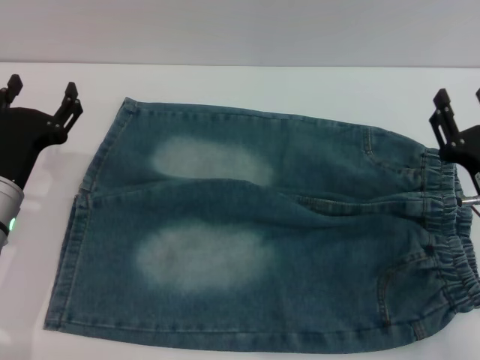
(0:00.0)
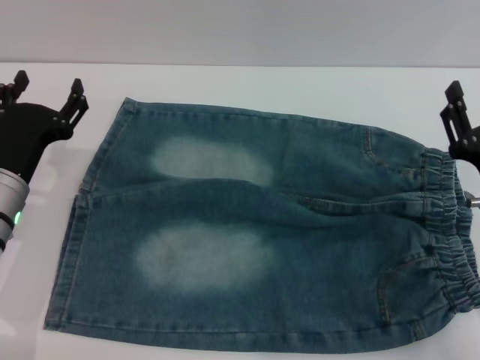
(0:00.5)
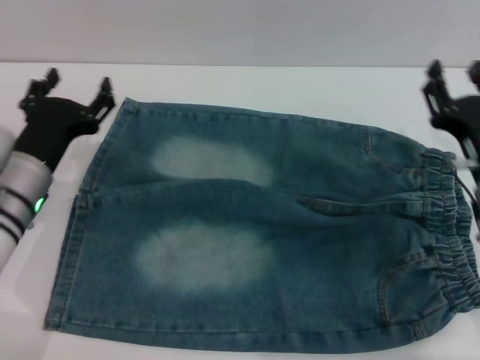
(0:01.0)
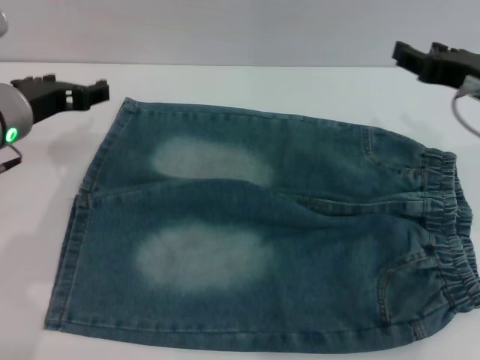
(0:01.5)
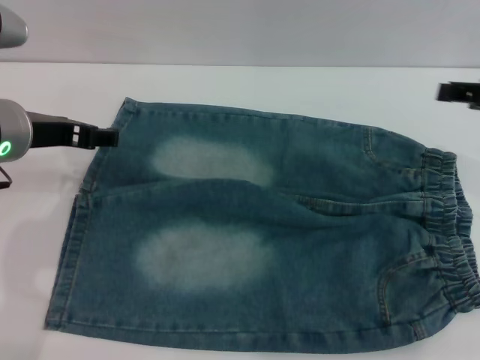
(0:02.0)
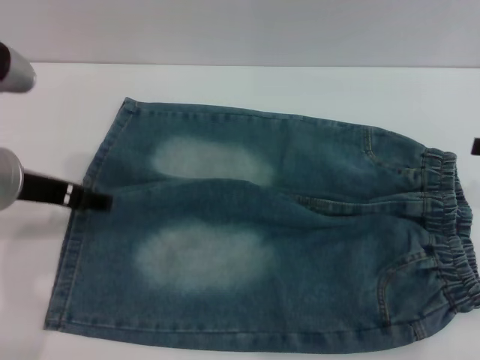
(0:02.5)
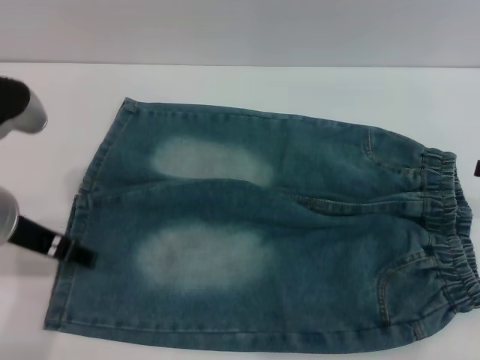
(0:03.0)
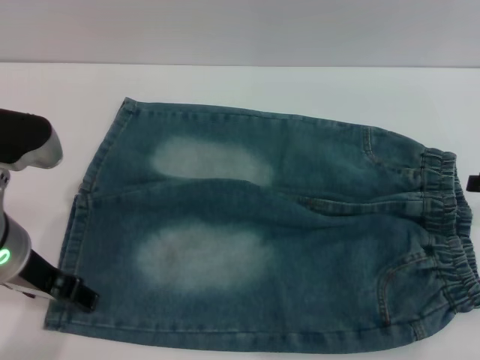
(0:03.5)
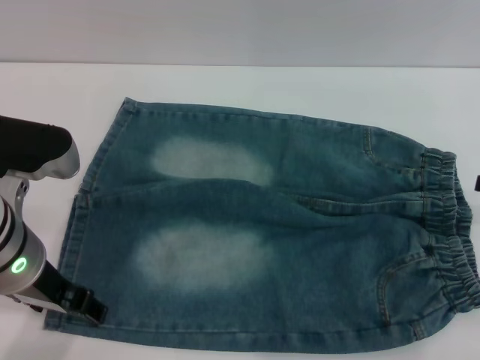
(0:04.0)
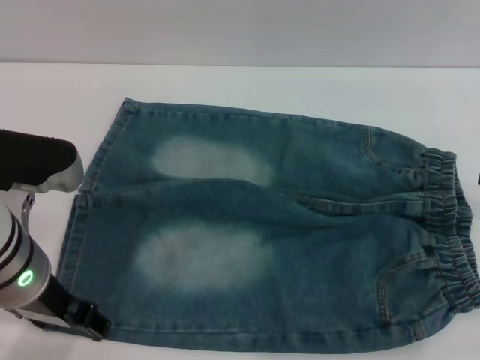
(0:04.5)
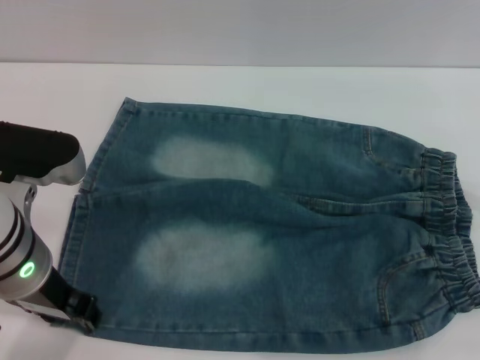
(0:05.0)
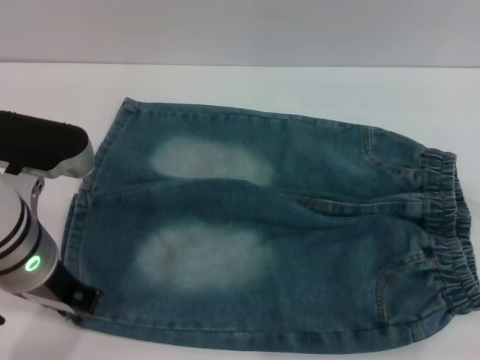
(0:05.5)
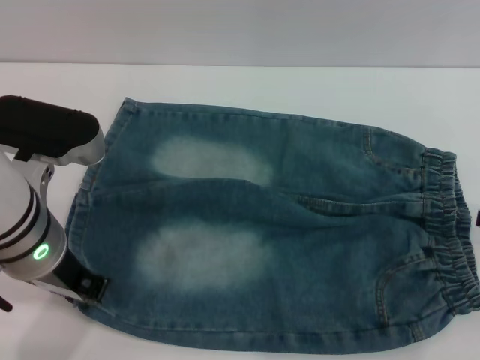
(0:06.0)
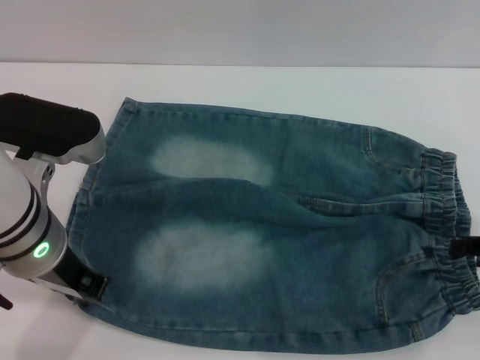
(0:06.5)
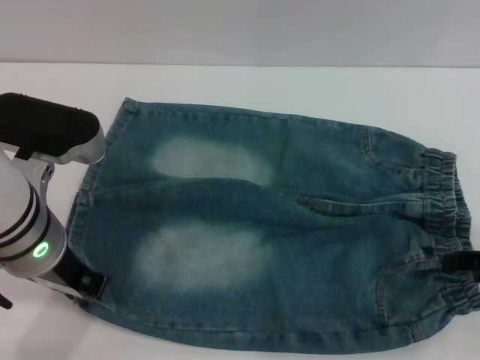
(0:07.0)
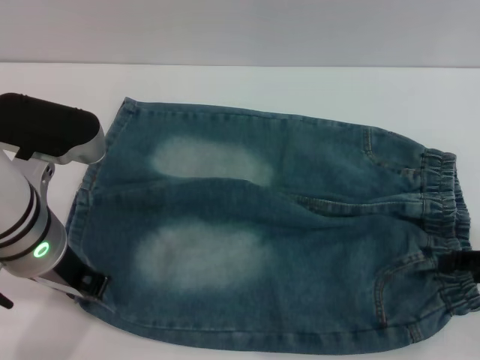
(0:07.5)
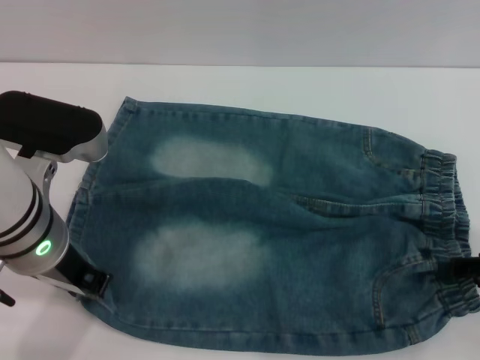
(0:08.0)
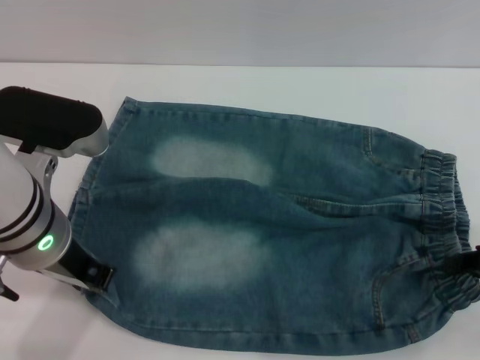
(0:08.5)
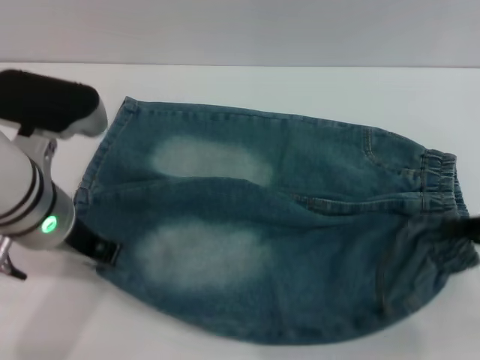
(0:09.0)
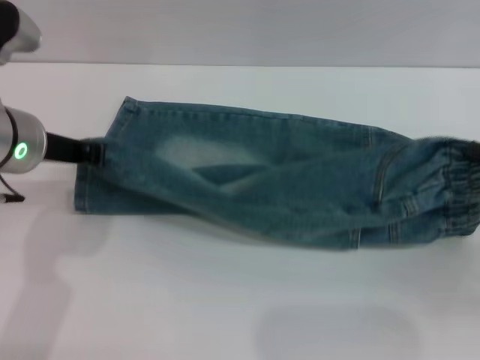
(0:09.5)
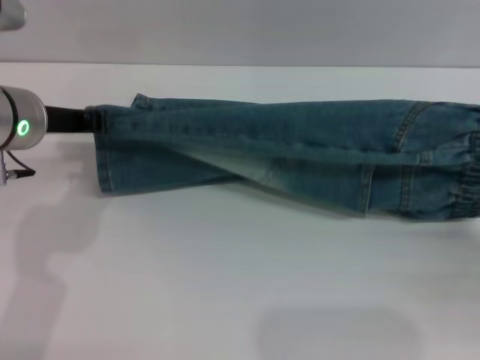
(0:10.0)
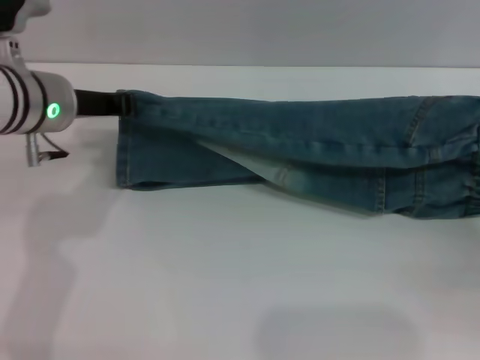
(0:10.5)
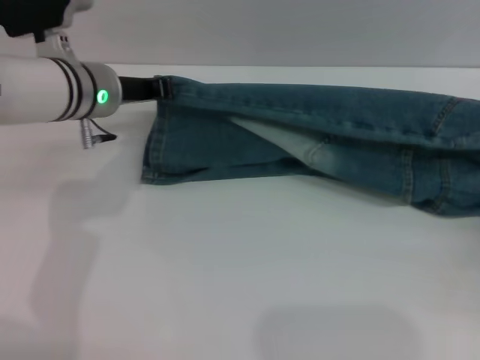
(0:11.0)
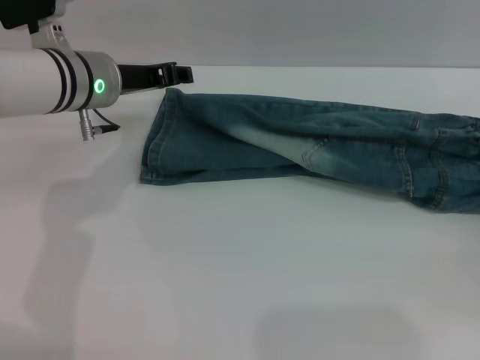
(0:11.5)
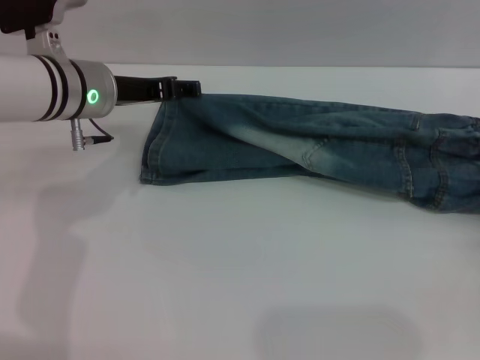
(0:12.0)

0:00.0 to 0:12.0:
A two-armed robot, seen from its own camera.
0:00.0 to 0:02.0: Both grippers move upward, about 15 cm.
0:02.0 to 0:04.0: The left gripper moves backward, about 5 cm, while the right gripper shifts some 5 cm downward and to the right.
0:04.0 to 0:06.0: The left gripper closes.
0:06.0 to 0:08.0: The right gripper ends up about 5 cm from where it was.
0:08.0 to 0:10.0: The right gripper closes up. Meanwhile the left gripper is displaced forward by some 5 cm.
0:10.0 to 0:12.0: The left gripper goes roughly 5 cm forward, and opens up; the right gripper opens its fingers.

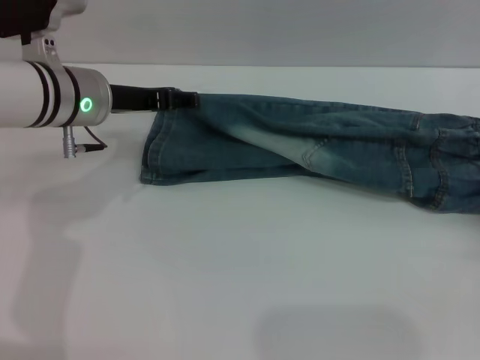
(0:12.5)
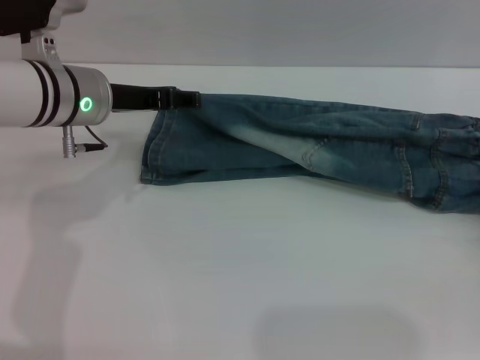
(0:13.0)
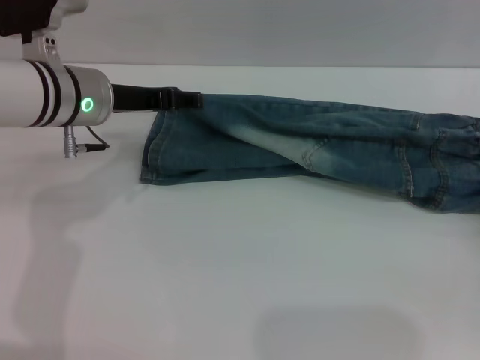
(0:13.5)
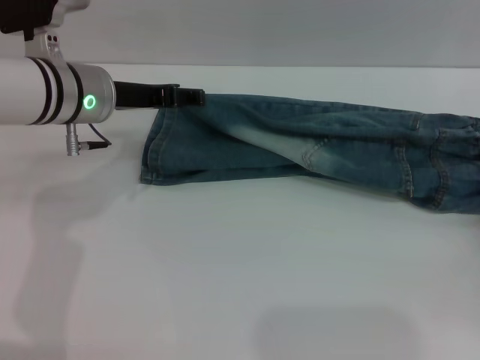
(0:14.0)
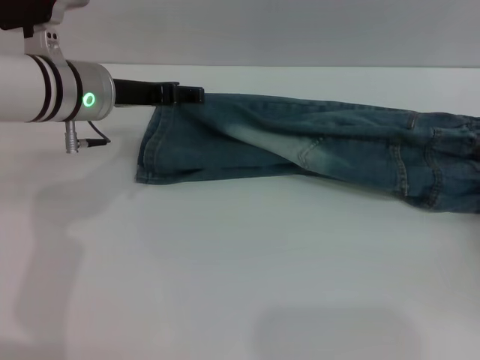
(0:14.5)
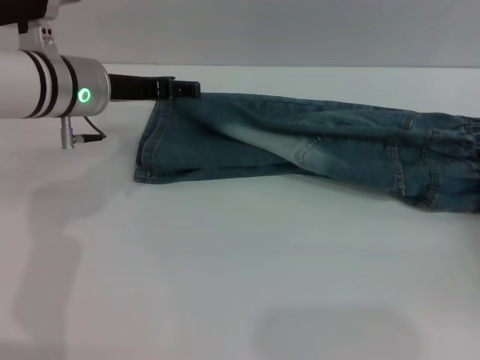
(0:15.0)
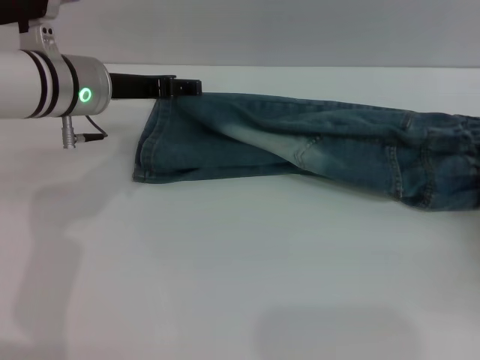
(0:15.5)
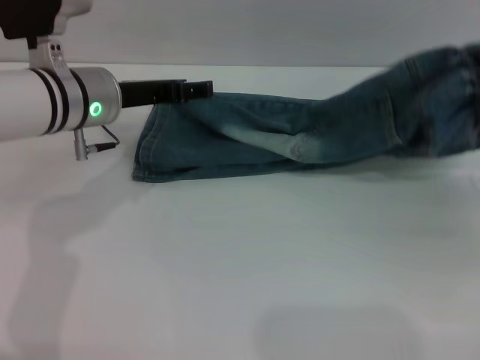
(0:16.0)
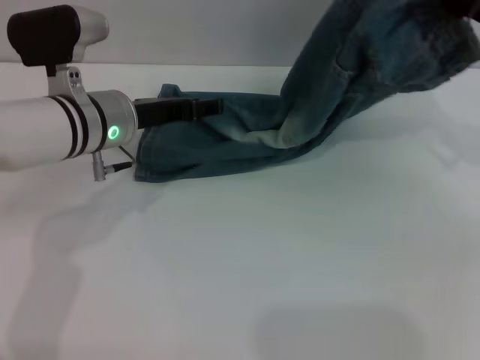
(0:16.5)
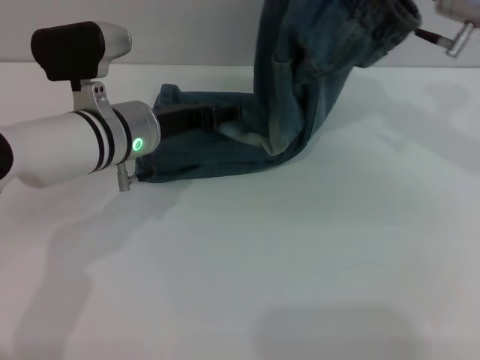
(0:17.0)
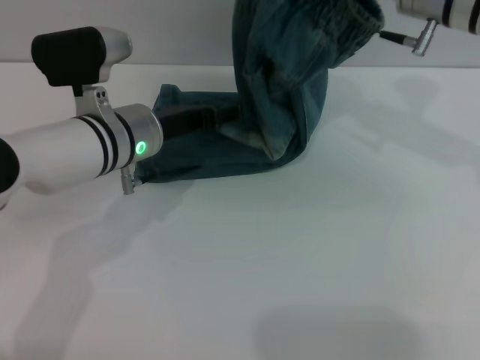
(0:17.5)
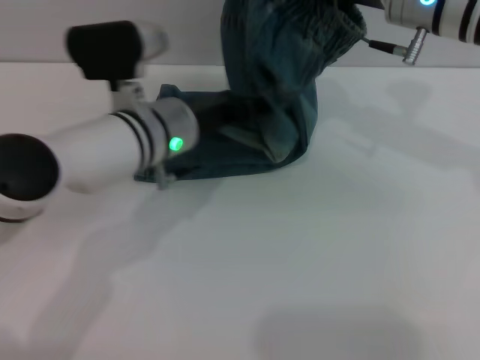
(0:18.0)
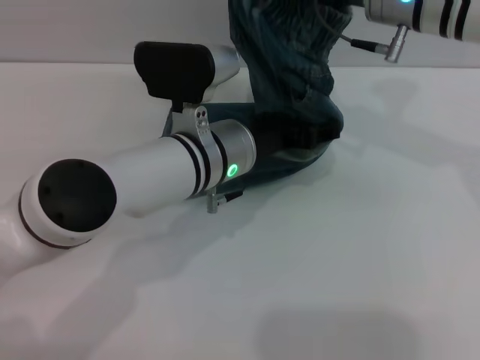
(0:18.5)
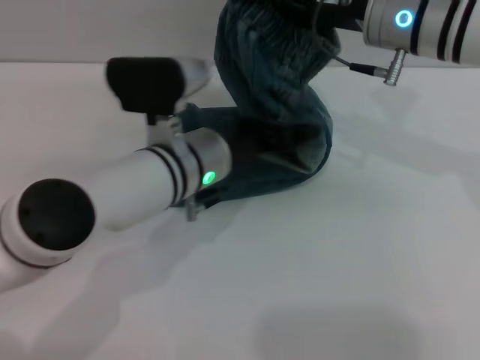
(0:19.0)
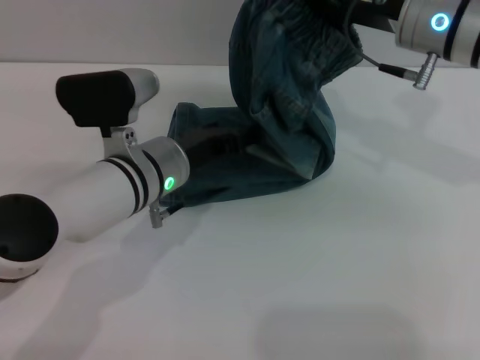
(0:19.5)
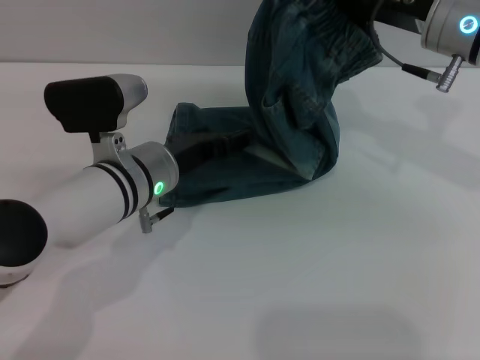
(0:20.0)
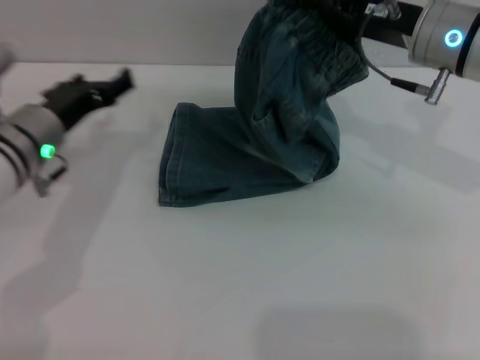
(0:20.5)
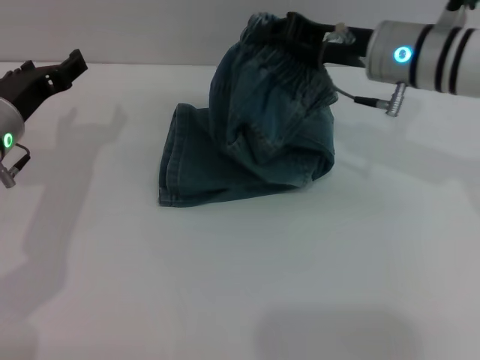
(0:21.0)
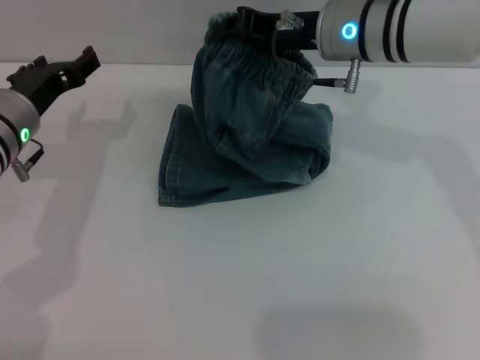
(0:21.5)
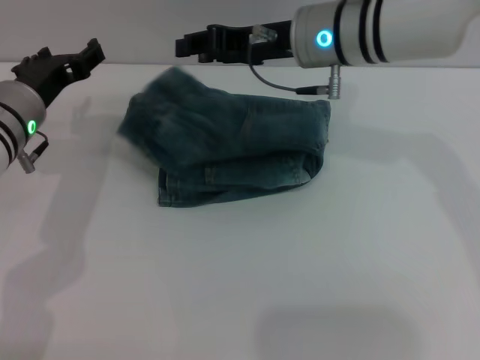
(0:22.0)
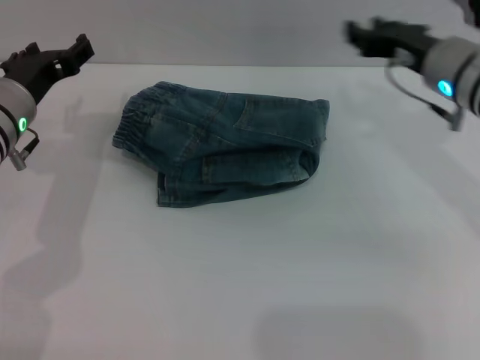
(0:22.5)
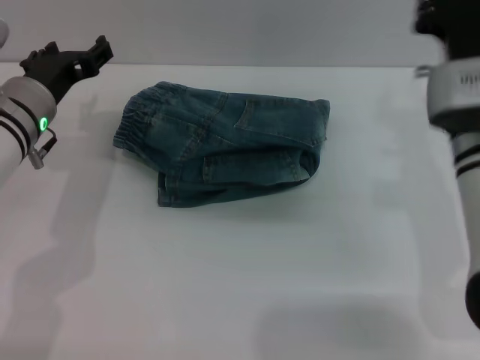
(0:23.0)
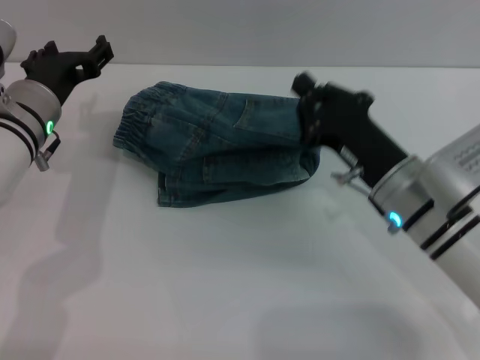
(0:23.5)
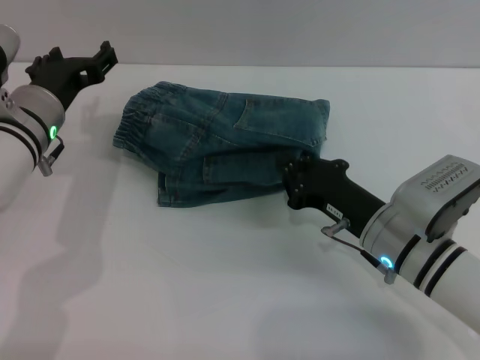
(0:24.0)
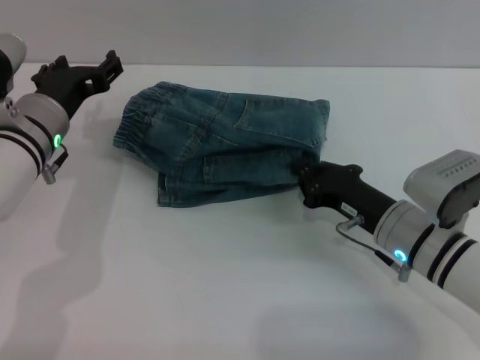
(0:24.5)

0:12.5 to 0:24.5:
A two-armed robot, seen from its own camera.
Step, 0:14.5 to 0:22.0: Fold the pants from right to left with the right gripper.
0:14.5 to 0:16.5: The right gripper moves upward, forward and to the left, about 20 cm, and closes its fingers.
0:16.5 to 0:18.5: The left gripper goes some 10 cm to the right. The right gripper is displaced to the left by roughly 15 cm.
0:18.5 to 0:20.5: The left gripper is displaced to the left by approximately 15 cm; the right gripper ends up approximately 5 cm from where it was.
0:20.5 to 0:22.5: The right gripper moves approximately 10 cm to the left and comes back, and opens.
0:22.5 to 0:24.5: The right gripper shifts about 15 cm downward and backward, and closes up.

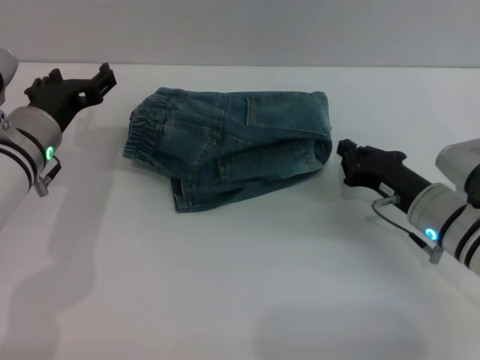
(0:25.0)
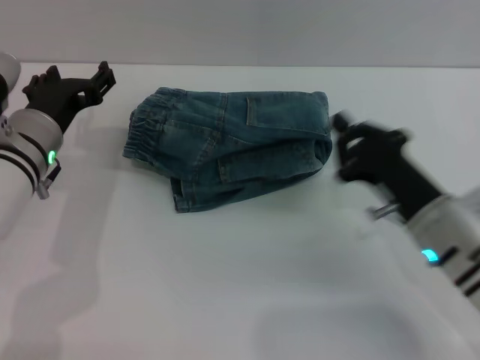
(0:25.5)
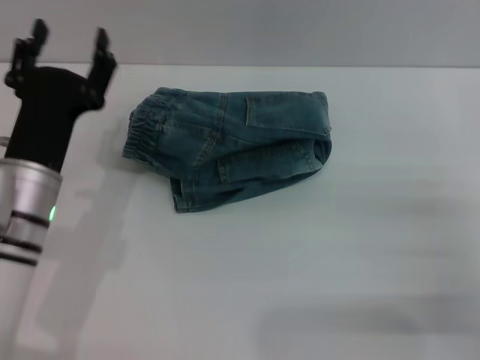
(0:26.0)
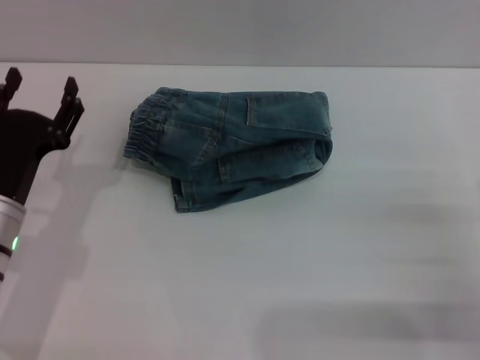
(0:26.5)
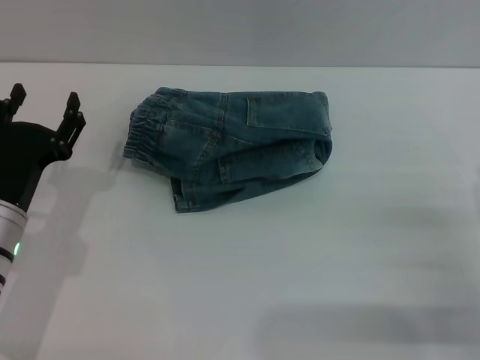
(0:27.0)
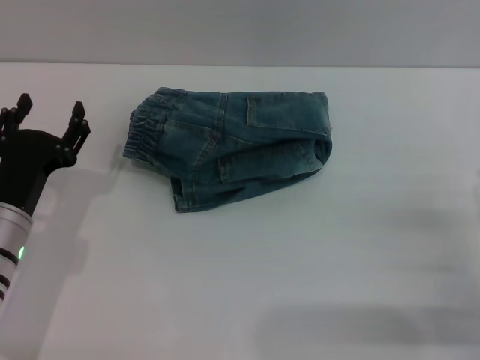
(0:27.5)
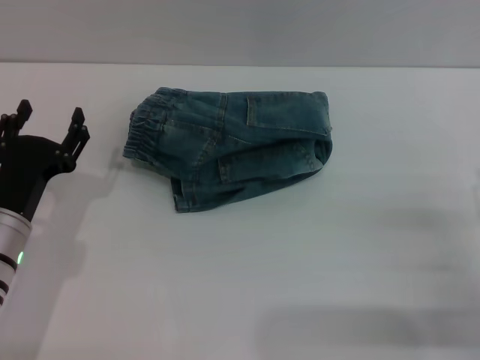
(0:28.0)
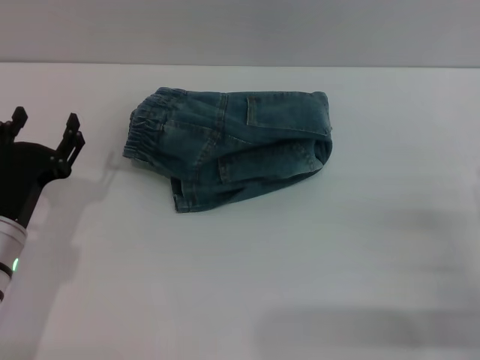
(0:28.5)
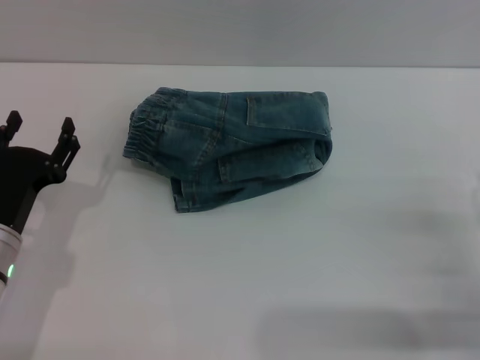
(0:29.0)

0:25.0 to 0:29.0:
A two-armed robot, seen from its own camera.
0:25.0 to 0:27.0: The right gripper moves backward and to the right, approximately 15 cm, and opens up. The left gripper is displaced backward and downward by some 10 cm.
0:27.0 to 0:29.0: There are only small adjustments of the grippers.
